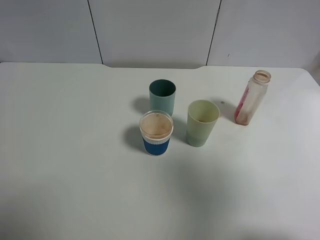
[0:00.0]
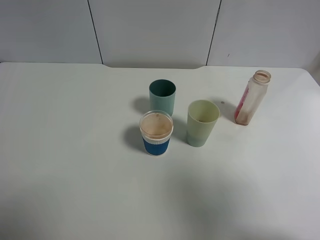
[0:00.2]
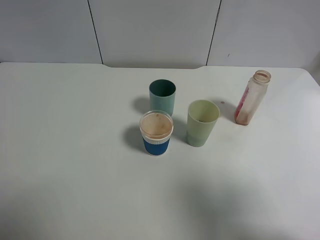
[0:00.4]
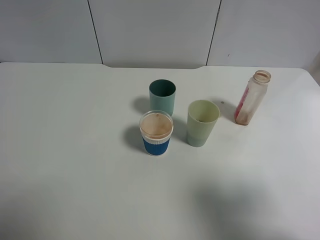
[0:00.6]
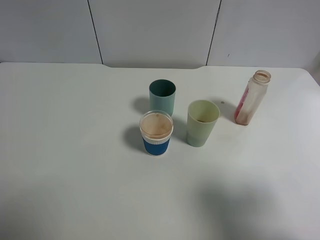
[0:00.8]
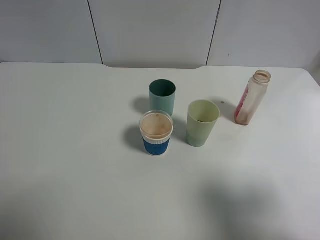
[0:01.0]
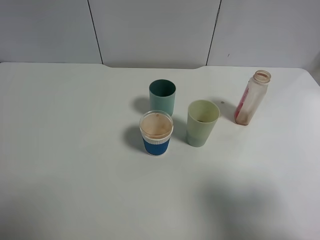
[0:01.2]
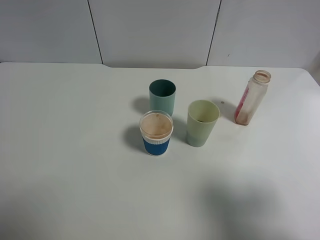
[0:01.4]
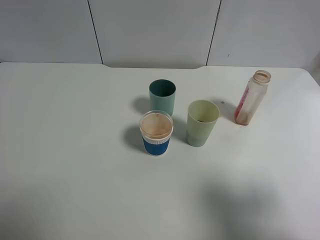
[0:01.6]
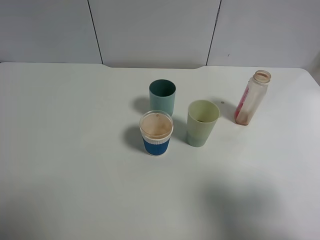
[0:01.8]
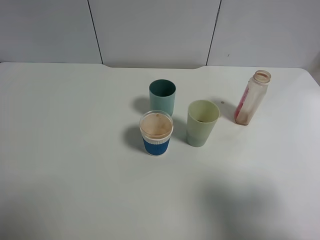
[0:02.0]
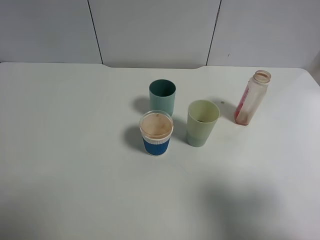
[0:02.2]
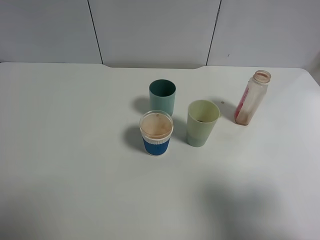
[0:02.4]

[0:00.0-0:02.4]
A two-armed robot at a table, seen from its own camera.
Task of the whole recording: use a gripper to hold the bottle of the drink and pour it into a random cup.
0:00.0 to 0:01.2: The right gripper moves downward, roughly 10 cm.
0:01.2 to 0:02.4: Neither gripper changes place.

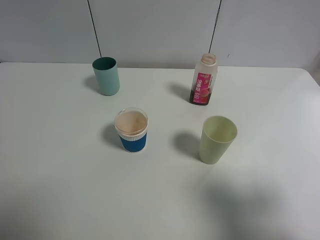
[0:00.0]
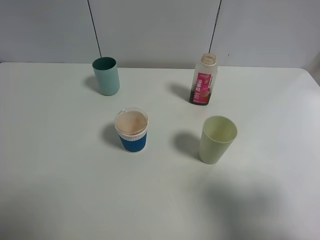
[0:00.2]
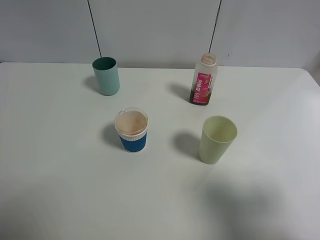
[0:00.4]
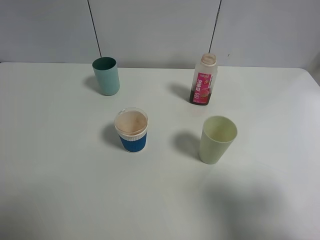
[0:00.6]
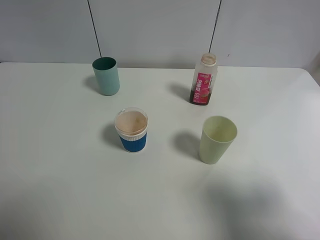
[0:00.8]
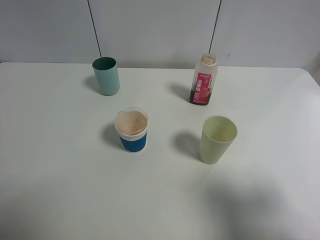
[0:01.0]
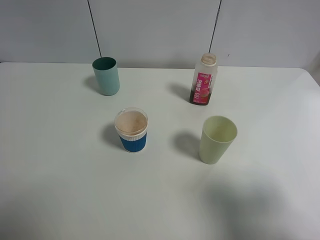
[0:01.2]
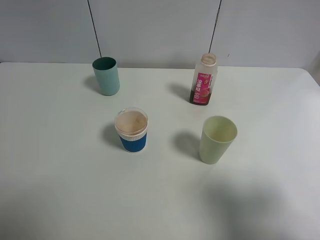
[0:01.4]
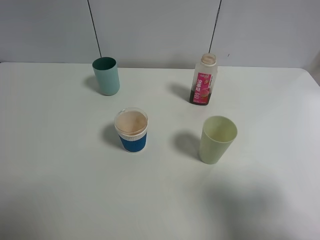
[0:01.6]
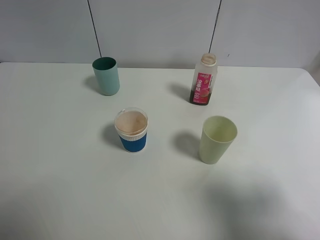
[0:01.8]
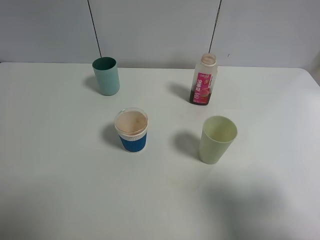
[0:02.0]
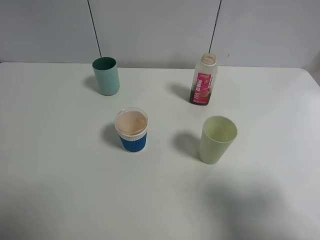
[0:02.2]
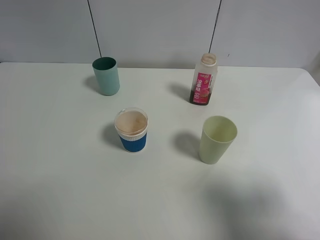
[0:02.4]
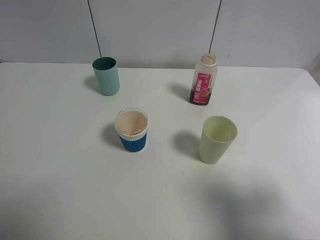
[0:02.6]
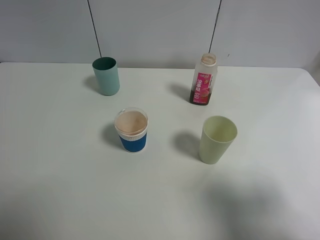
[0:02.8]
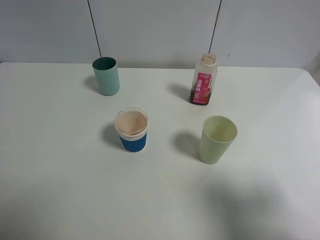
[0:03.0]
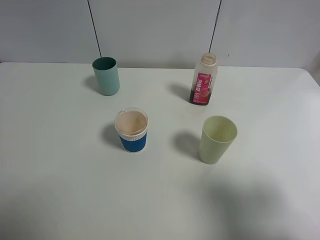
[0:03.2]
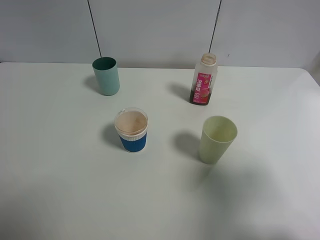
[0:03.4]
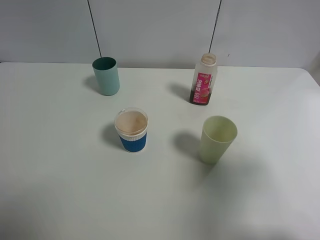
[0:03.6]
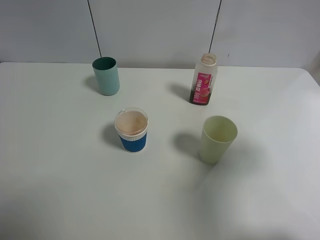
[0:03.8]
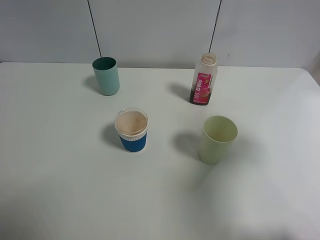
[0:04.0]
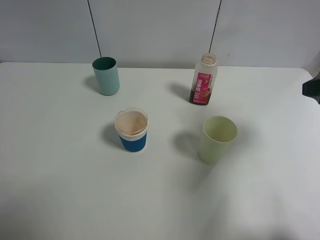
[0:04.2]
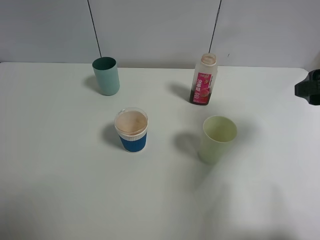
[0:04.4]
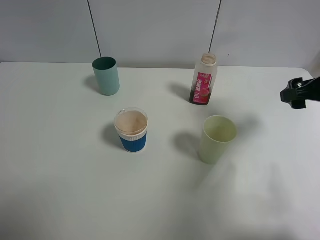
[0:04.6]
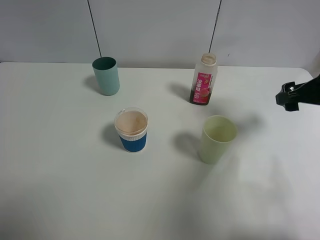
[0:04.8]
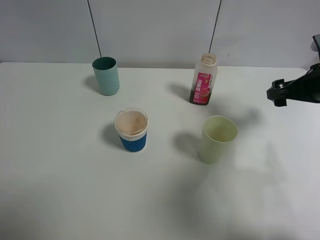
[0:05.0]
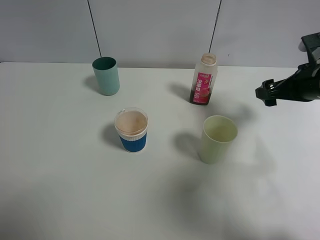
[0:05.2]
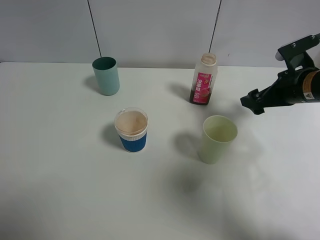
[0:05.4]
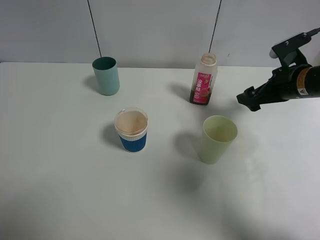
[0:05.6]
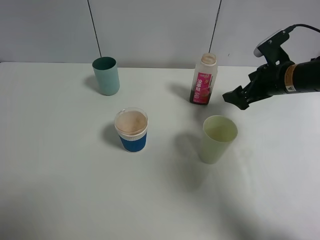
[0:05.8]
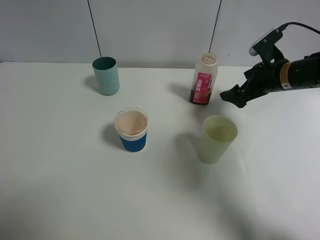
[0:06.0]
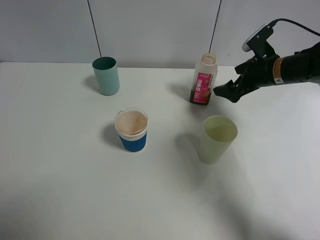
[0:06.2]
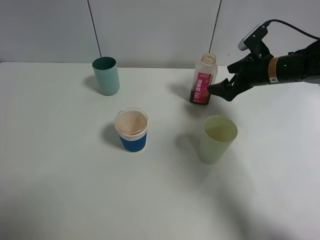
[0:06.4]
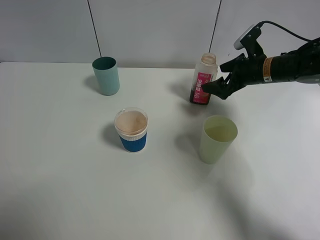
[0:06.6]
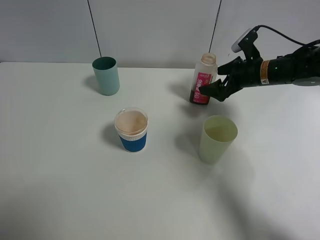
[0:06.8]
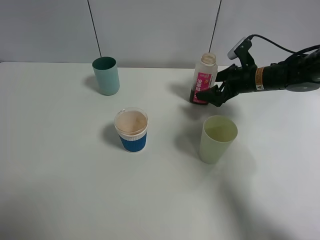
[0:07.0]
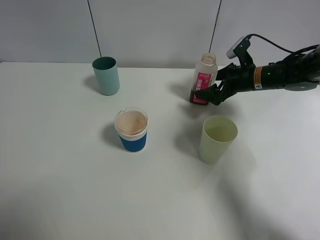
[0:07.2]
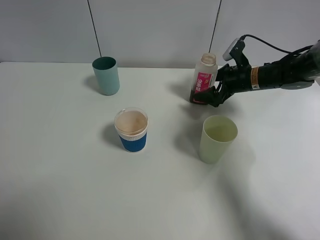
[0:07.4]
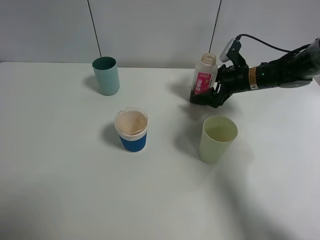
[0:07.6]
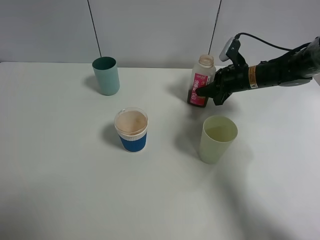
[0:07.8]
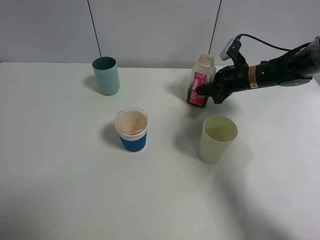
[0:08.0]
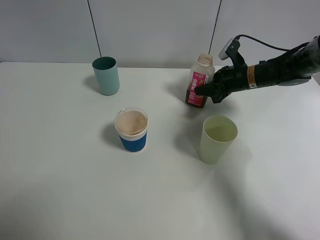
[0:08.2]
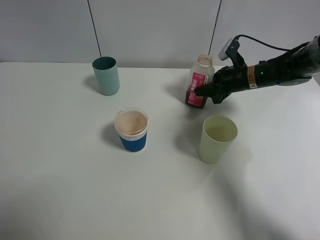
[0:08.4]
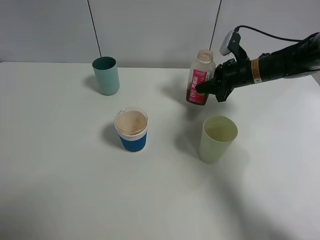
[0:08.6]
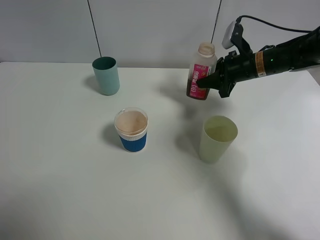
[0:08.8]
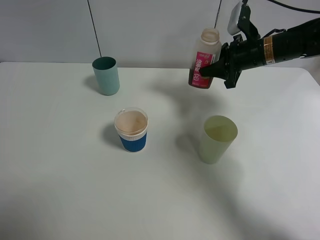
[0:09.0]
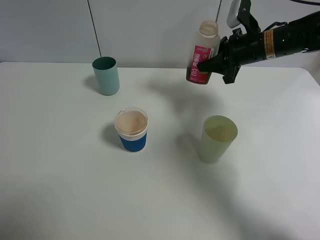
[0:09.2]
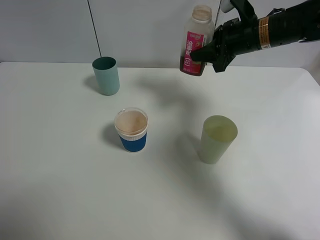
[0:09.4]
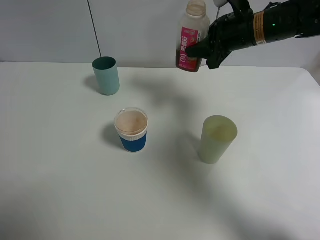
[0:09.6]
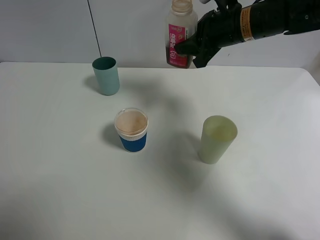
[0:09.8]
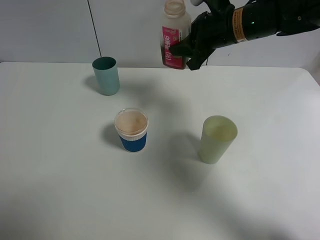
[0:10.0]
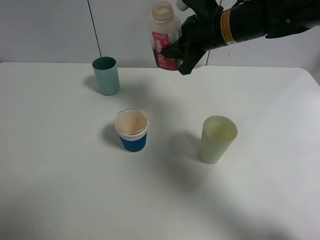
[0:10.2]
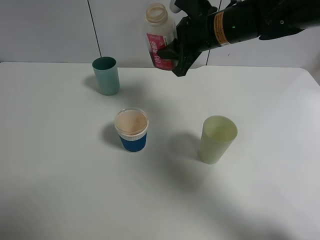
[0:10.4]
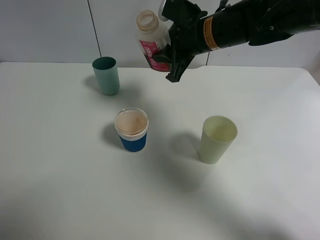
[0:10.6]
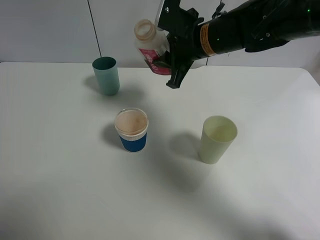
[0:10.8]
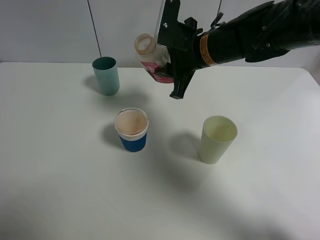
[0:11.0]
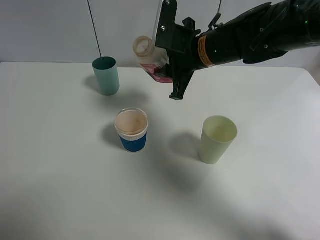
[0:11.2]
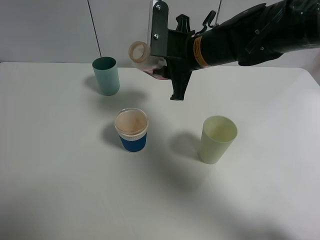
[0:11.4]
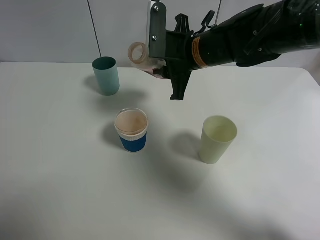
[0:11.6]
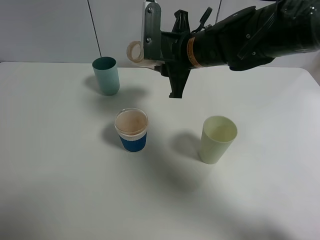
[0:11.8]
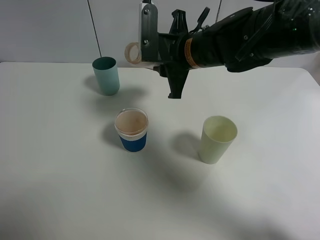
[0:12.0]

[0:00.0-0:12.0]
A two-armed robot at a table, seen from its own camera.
Task of the whole recording: use a gripper to hold the bottle of the drink and pour it into a random cup.
Step, 0:00.0 to 0:08.2: Grasp the cranberry juice bottle with the right gripper.
0:00.0 to 0:03.0: Both grippers stay about where they are.
0:03.0 to 0:04.4: The right gripper goes about 20 cm forward.
0:04.4 to 0:06.0: The right gripper is displaced forward and downward by approximately 20 cm.
0:06.0 to 0:07.6: The right gripper is displaced forward and downward by roughly 10 cm.
0:07.6 to 0:09.0: The right gripper travels upward by some 10 cm, and closes.
0:09.0 to 0:10.4: The right gripper moves to the left and upward, about 15 cm.
0:10.4 to 0:12.0: The right gripper ends up some 5 cm from where it was.

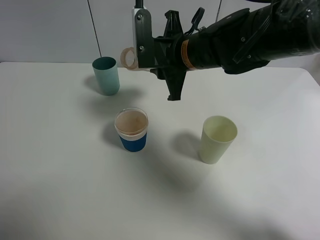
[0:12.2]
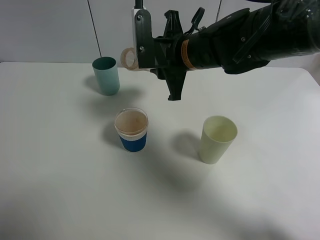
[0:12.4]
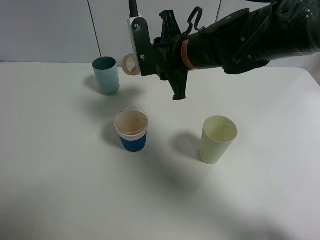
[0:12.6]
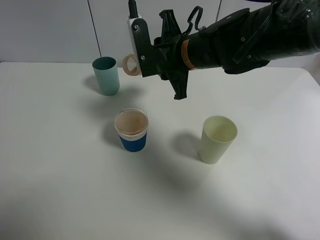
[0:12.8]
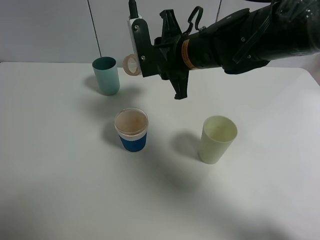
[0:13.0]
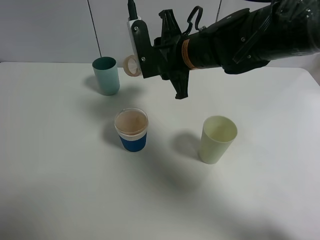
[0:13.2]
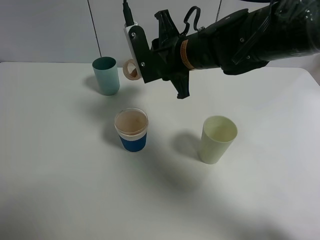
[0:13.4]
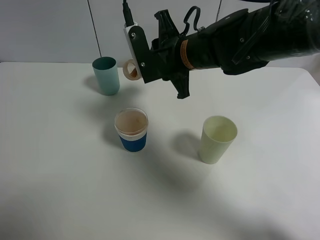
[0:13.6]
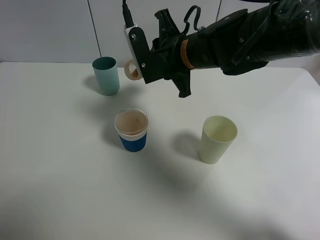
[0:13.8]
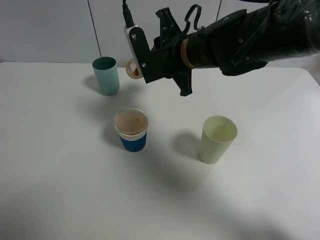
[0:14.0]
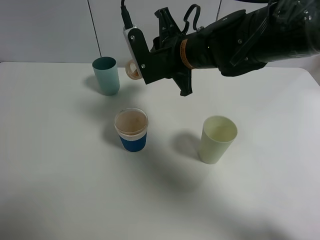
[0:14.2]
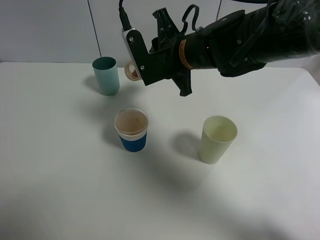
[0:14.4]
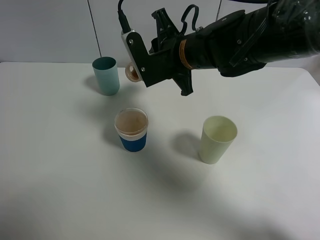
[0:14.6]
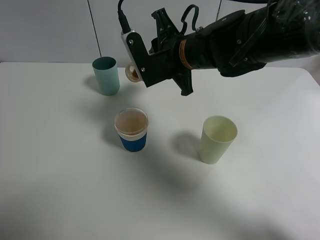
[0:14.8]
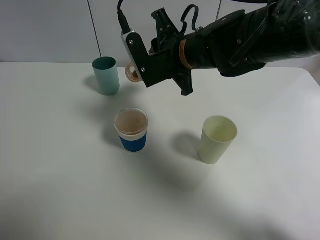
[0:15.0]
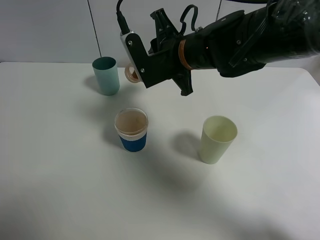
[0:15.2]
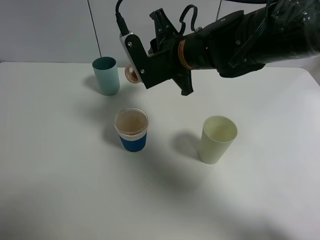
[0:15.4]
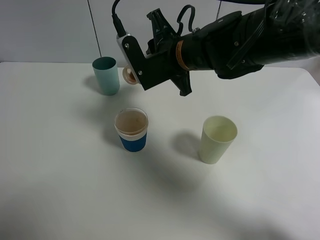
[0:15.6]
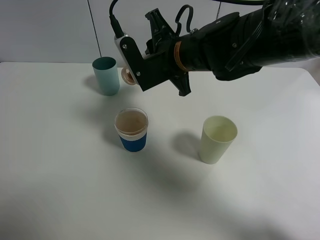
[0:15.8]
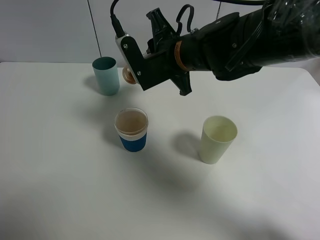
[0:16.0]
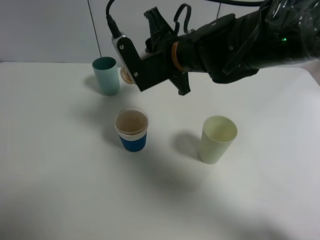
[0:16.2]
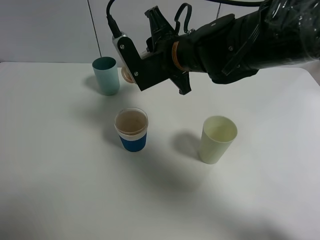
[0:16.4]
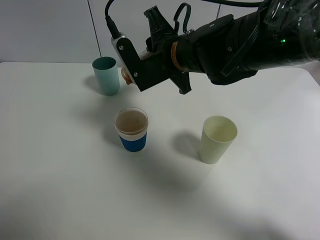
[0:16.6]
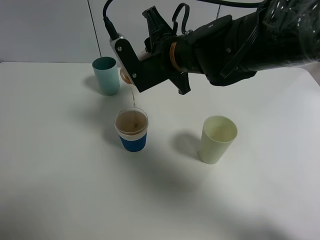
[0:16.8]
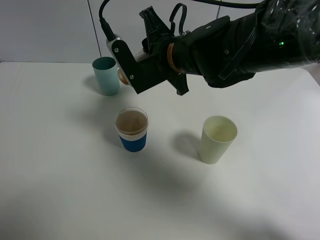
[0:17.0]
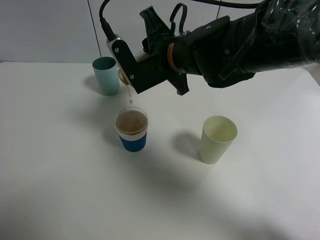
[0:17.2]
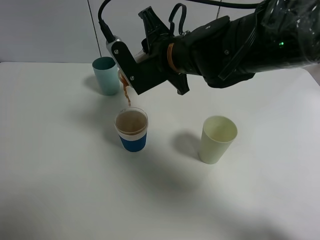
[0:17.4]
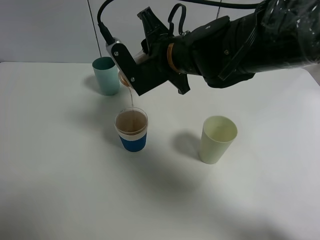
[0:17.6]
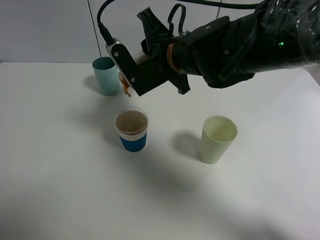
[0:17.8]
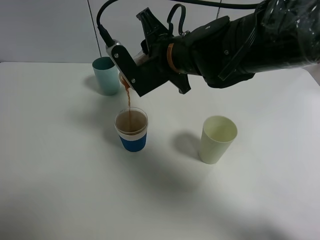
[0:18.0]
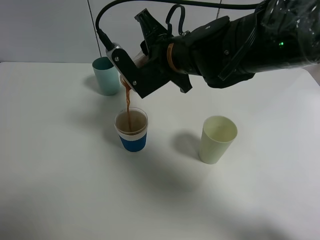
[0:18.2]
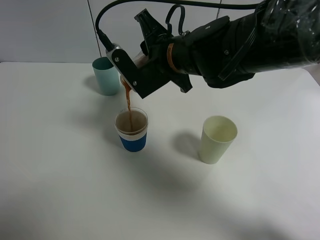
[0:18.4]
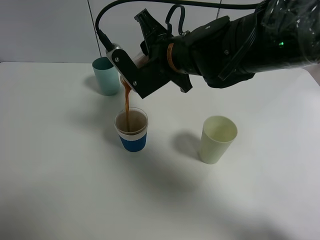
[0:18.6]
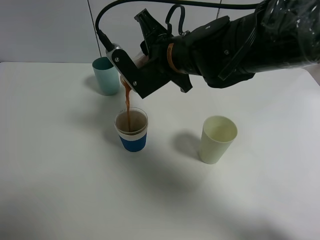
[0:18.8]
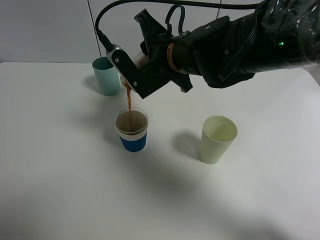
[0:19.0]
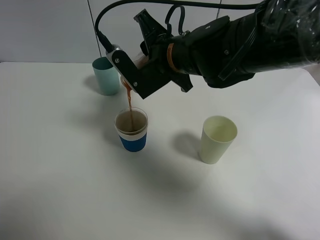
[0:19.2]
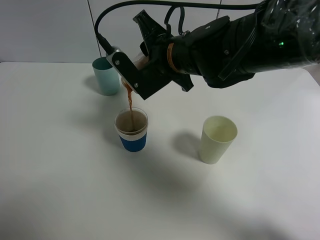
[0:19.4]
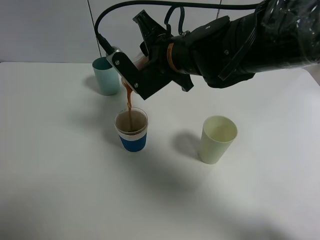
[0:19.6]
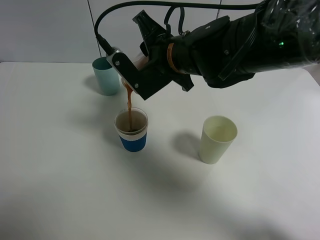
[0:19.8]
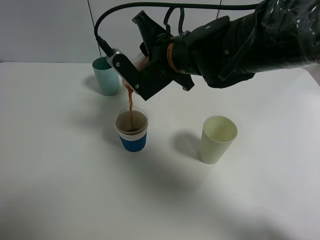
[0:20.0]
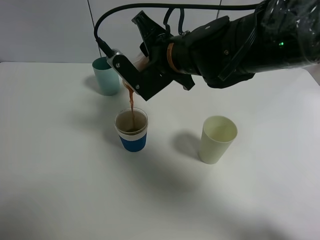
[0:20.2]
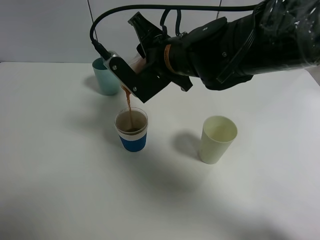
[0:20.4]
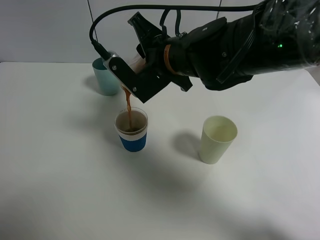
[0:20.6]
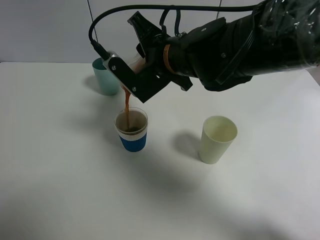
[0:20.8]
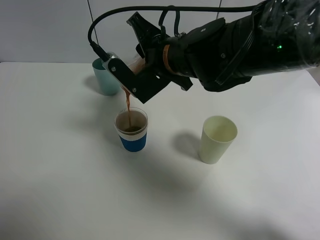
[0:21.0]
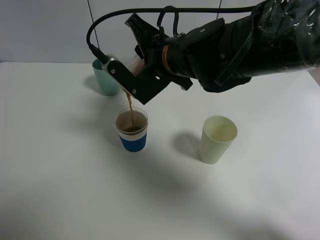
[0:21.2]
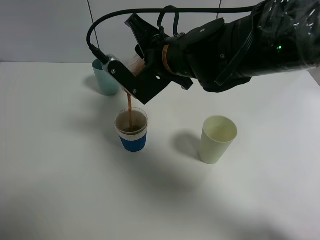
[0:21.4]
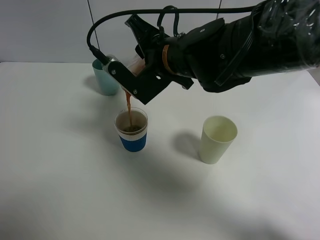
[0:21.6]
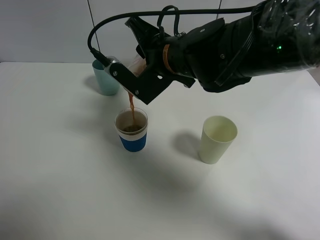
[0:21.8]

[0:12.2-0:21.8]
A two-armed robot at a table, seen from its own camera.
Task of the whole recording: use a gripper to hold the bottle of the drink and pour it into a random cup.
0:12.2 to 0:13.8: There are only small adjustments of the grippers.
0:13.8 to 0:18.6: The grippers move only a little.
0:18.6 to 0:21.8: The grippers move only a little.
